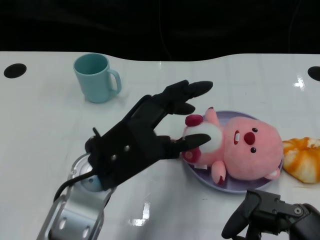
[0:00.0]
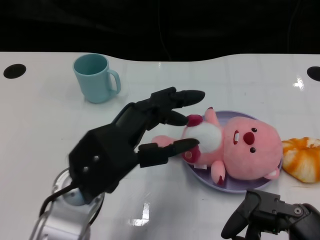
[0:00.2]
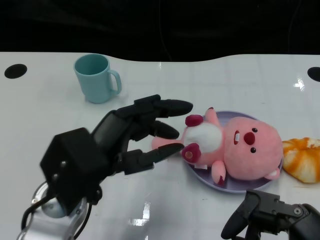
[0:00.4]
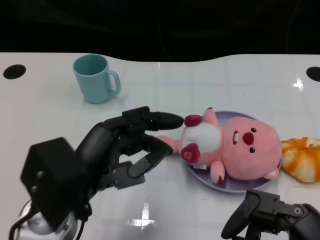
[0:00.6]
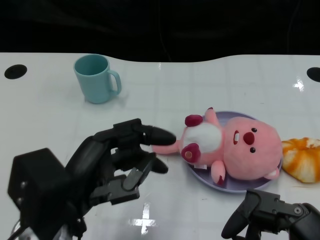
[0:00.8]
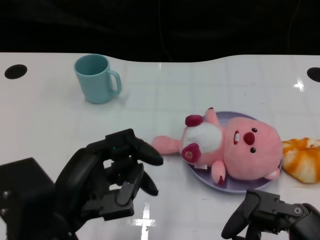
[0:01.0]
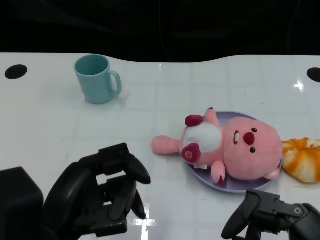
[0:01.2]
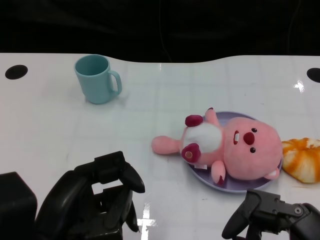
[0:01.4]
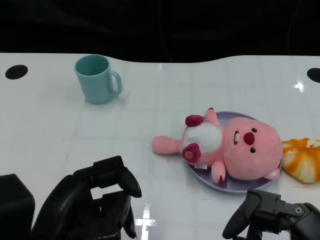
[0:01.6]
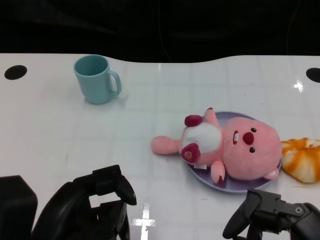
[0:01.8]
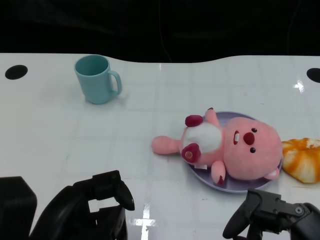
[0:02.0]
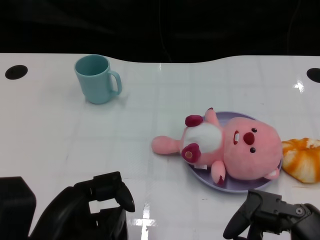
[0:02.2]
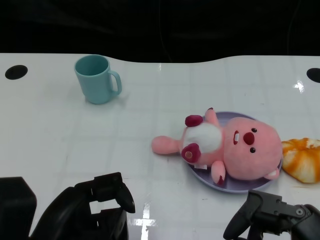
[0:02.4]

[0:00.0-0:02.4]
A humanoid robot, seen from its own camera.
Task of the whole recording: Pick up the doll on one side of the plate and place it into the plate.
0:00.0 to 0:01.2: The left hand shifts roughly 10 cm backward and to the left.
0:01.2 to 0:02.4: The hands make only small movements.
